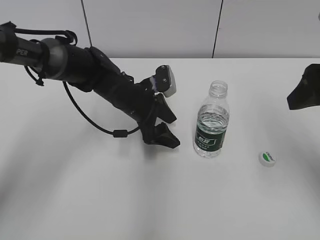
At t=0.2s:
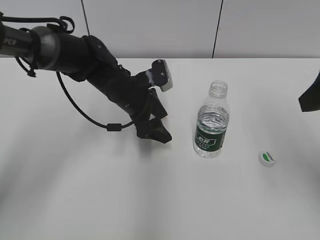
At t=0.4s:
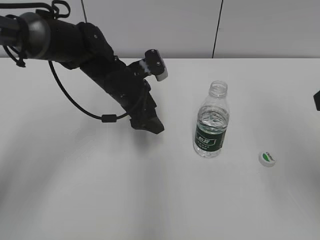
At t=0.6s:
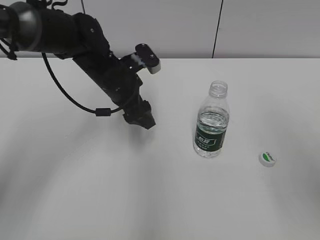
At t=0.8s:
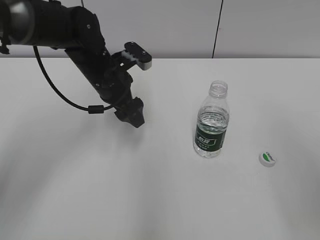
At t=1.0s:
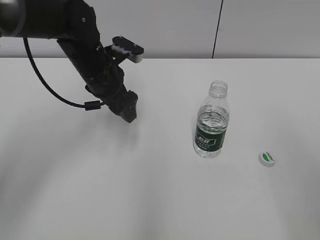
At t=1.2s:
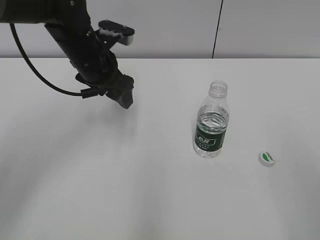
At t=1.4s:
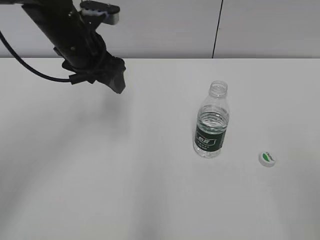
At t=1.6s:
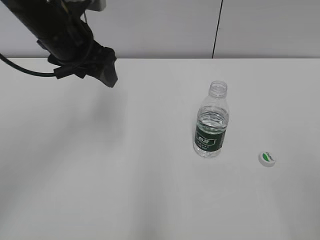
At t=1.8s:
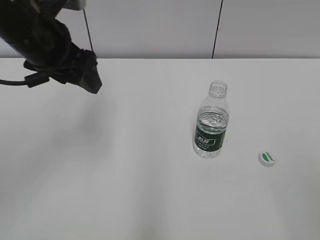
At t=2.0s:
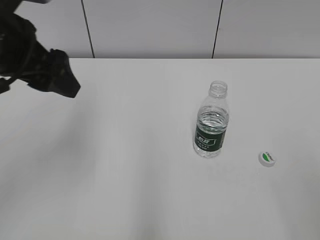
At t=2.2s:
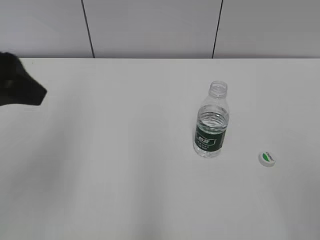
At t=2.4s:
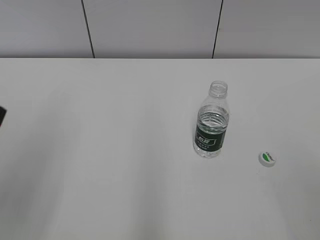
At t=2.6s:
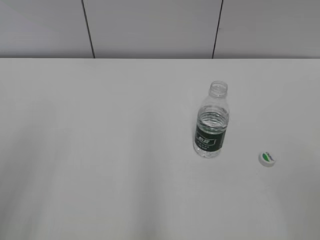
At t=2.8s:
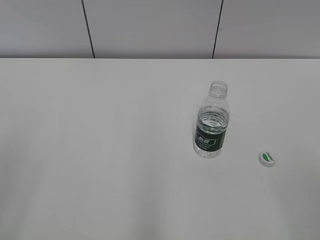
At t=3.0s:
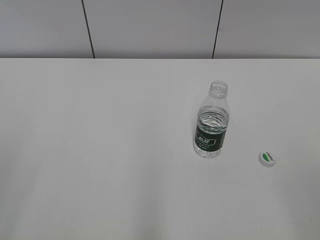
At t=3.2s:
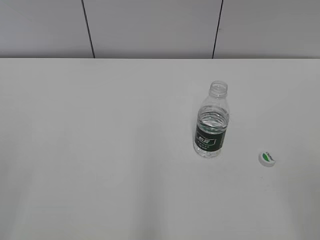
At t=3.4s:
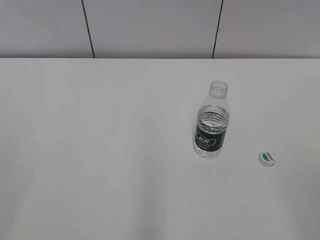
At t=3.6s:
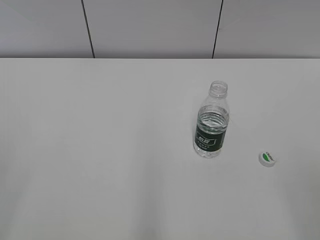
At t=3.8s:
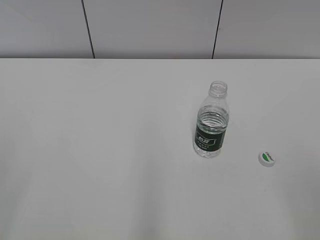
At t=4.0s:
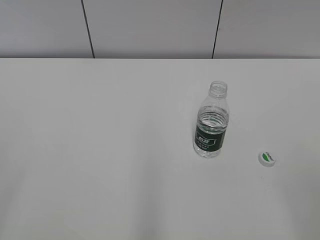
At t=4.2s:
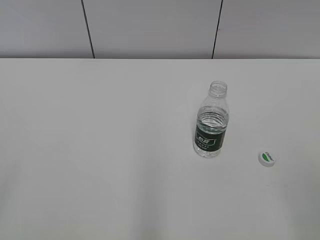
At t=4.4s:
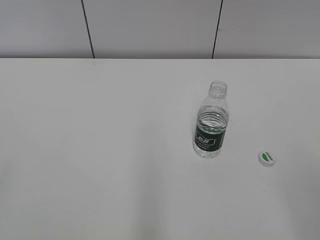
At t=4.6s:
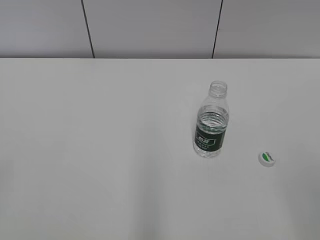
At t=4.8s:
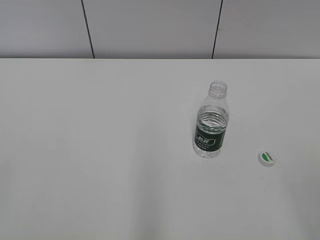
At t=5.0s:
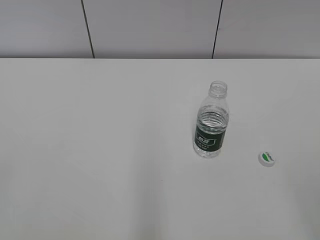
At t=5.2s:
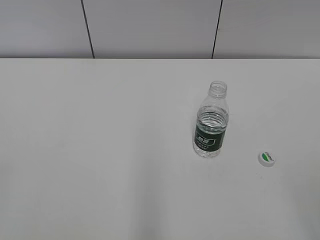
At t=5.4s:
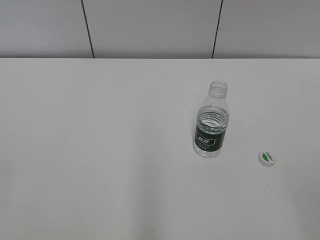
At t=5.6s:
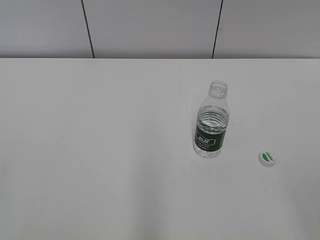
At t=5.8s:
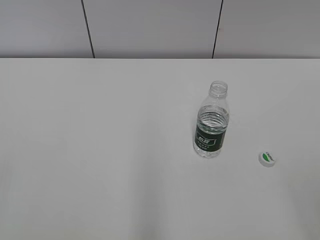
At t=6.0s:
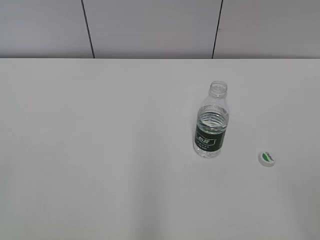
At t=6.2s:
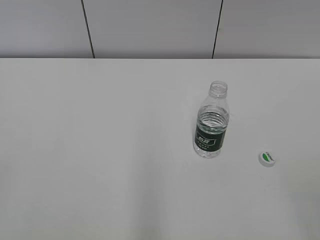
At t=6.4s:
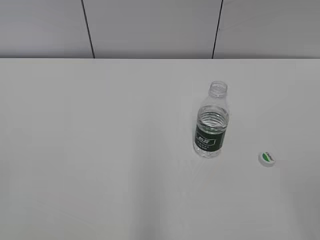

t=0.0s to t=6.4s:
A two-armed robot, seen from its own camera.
t=0.0s to t=1.6s: The left gripper is displaced upward and to the left by about 20 cm. Meanwhile the right gripper heads backward, covering roughly 20 cm.
t=1.6s to t=3.2s: The left gripper goes roughly 35 cm backward and to the left.
